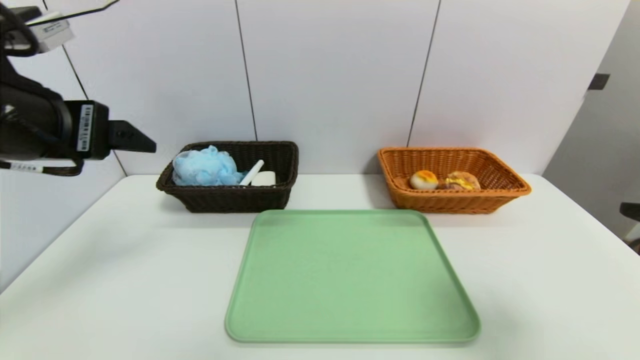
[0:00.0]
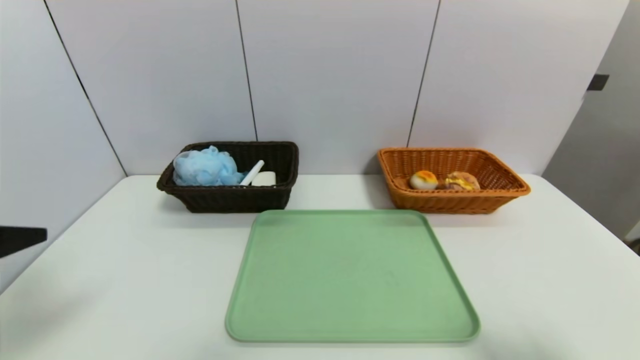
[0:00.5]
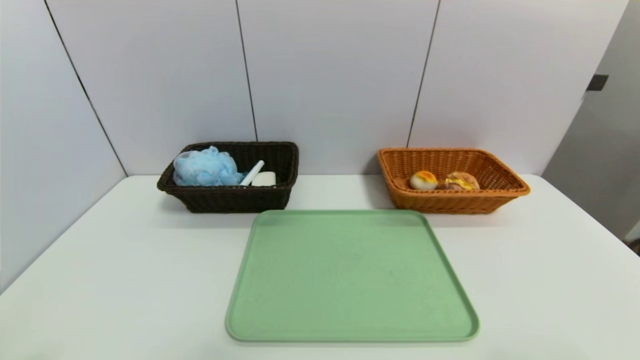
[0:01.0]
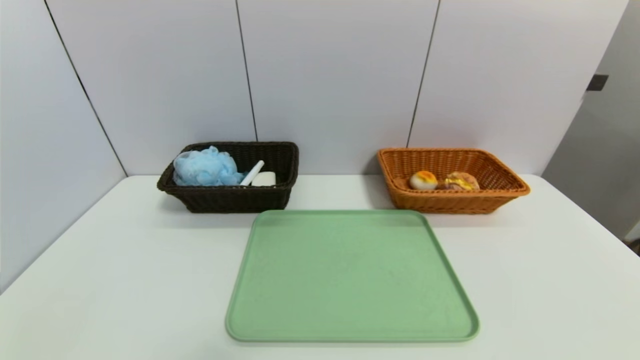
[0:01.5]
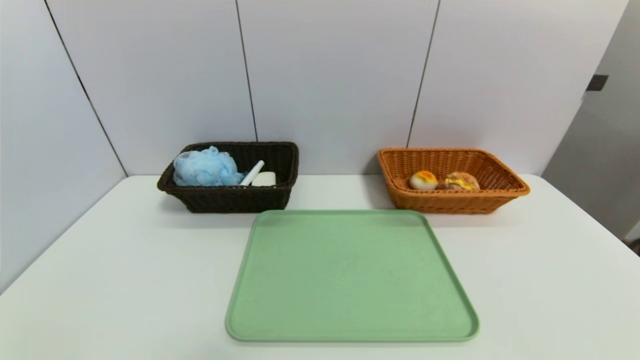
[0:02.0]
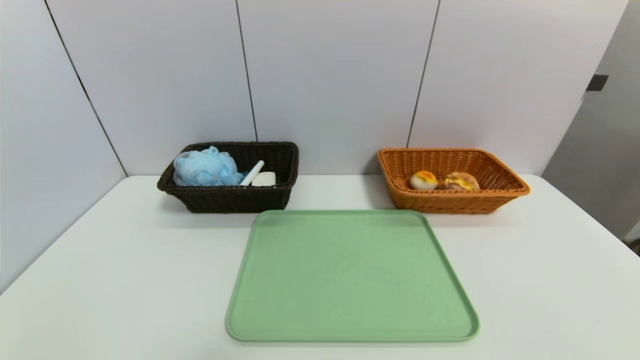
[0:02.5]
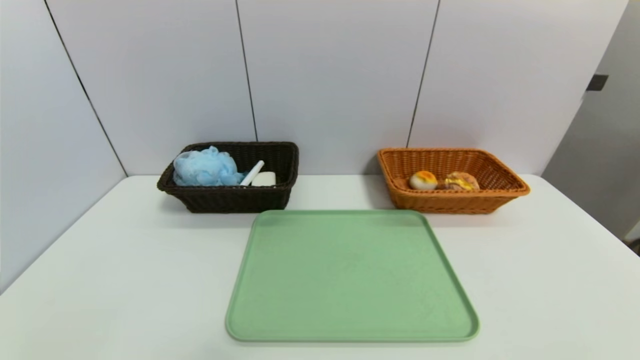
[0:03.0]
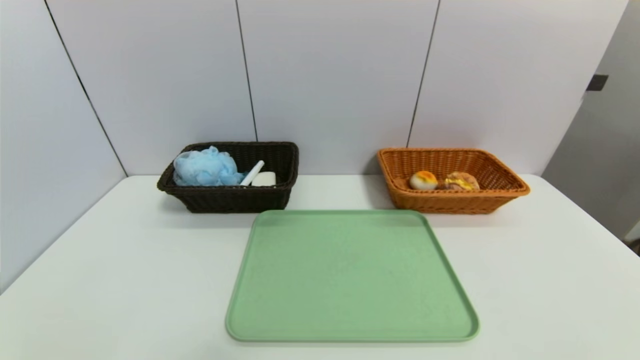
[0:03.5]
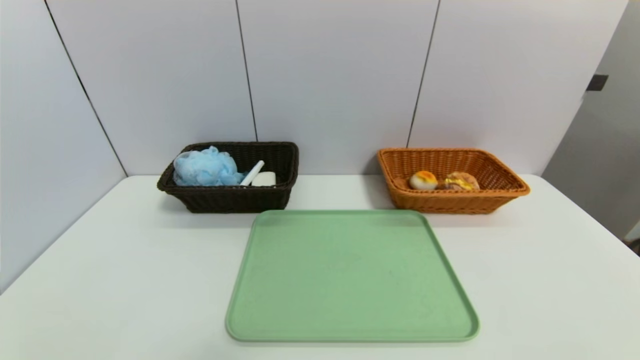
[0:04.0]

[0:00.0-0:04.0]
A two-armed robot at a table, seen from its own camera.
Task of the whole recording: place the food in the right basket with the right gripper, and place the non food items in the left basket with the left gripper.
0:00.0 to 0:02.0: The left gripper travels backward and downward by roughly 35 cm. Meanwhile the right gripper travels downward and backward by roughly 20 cm.
